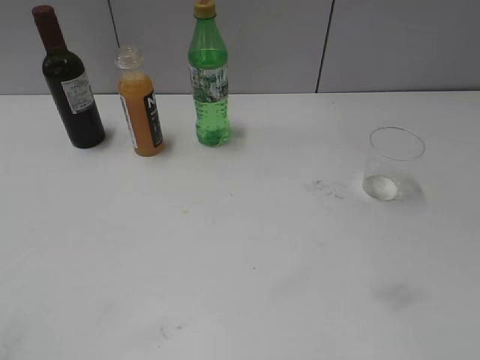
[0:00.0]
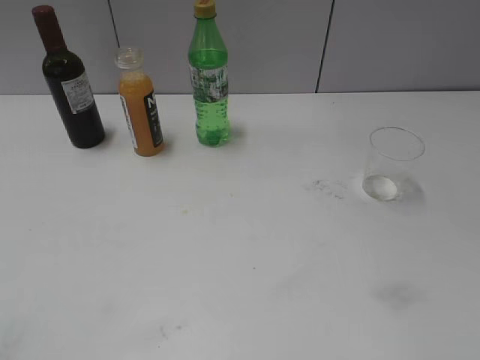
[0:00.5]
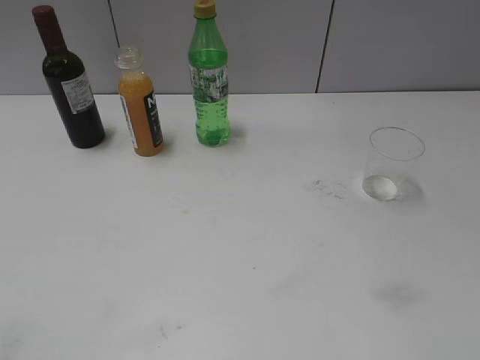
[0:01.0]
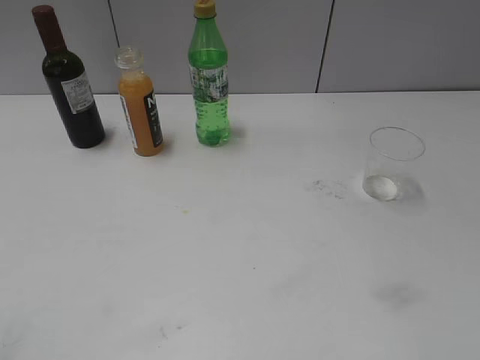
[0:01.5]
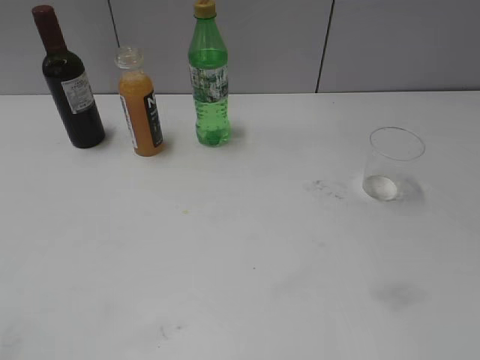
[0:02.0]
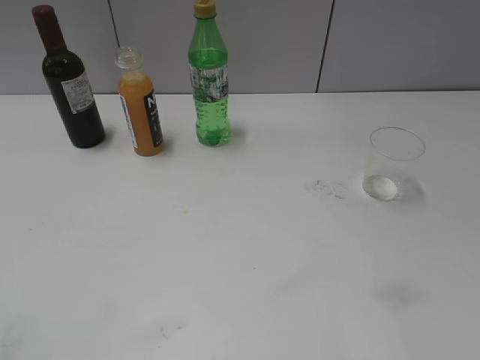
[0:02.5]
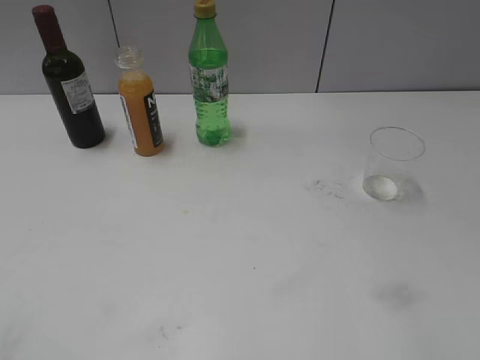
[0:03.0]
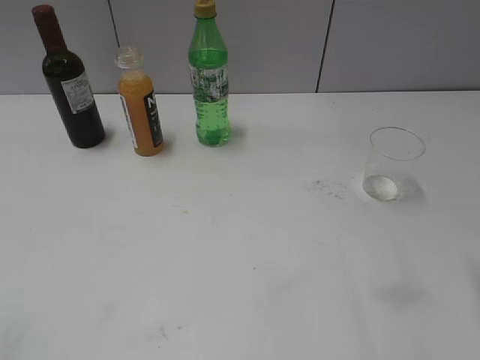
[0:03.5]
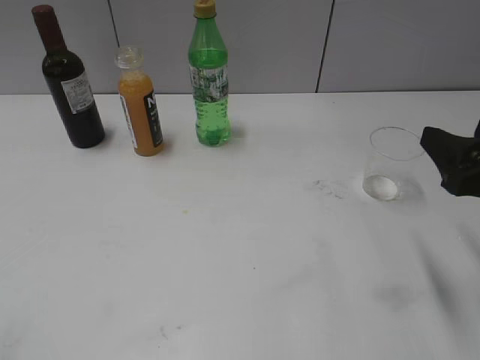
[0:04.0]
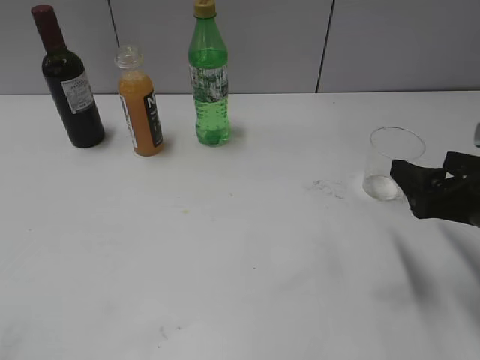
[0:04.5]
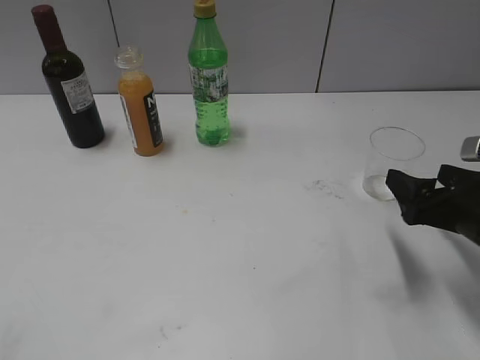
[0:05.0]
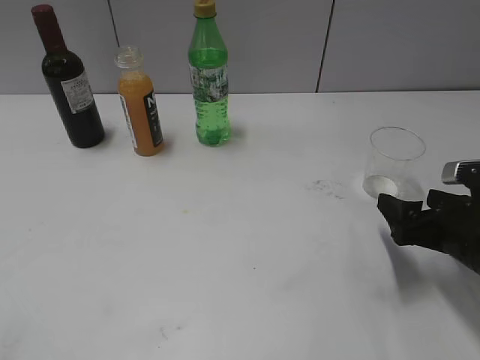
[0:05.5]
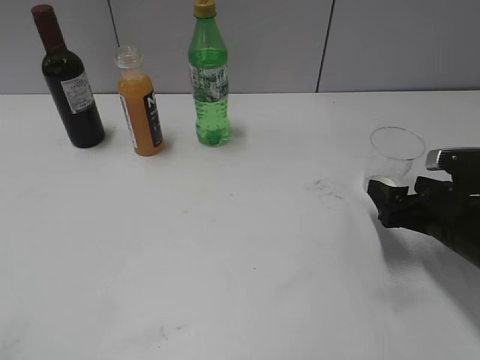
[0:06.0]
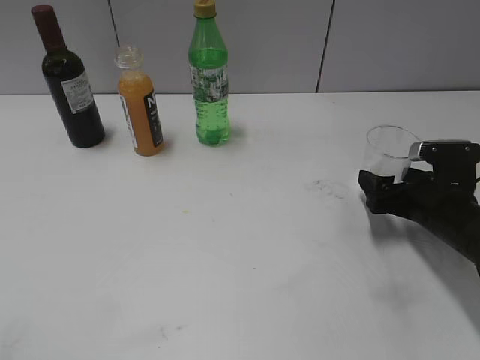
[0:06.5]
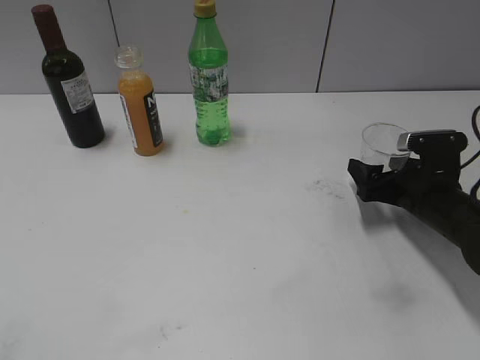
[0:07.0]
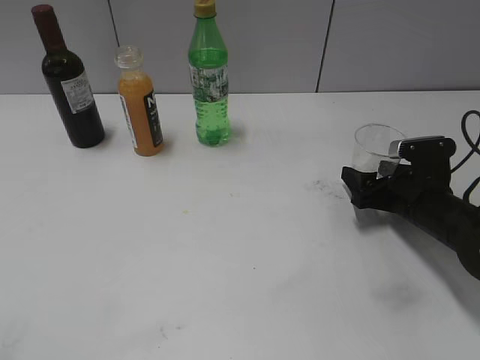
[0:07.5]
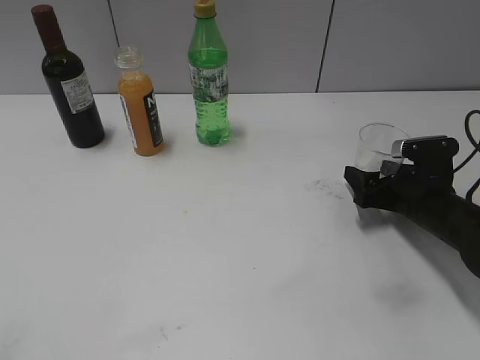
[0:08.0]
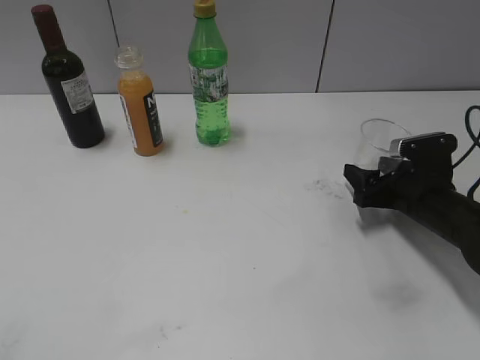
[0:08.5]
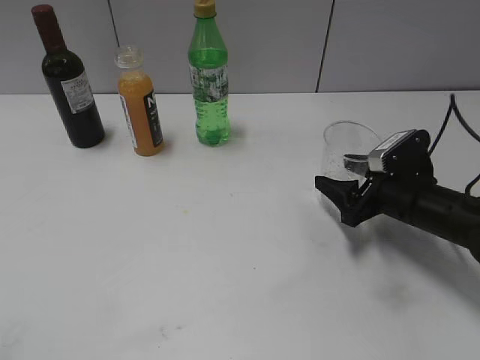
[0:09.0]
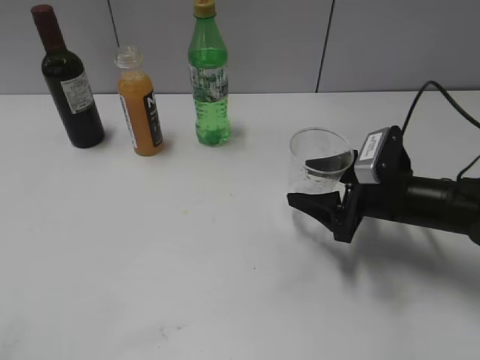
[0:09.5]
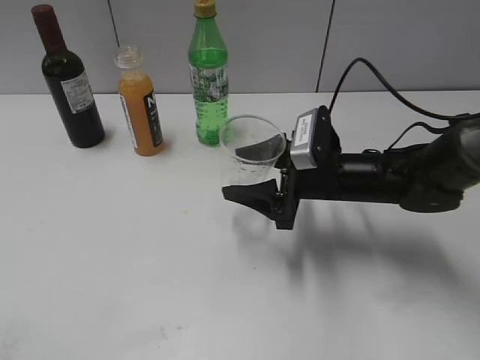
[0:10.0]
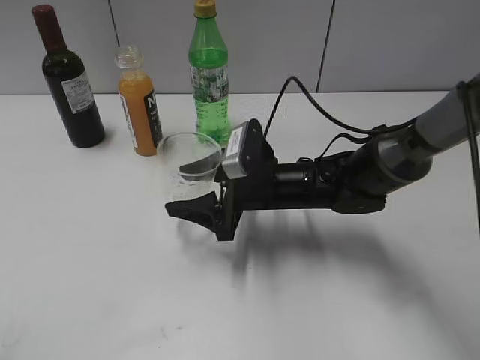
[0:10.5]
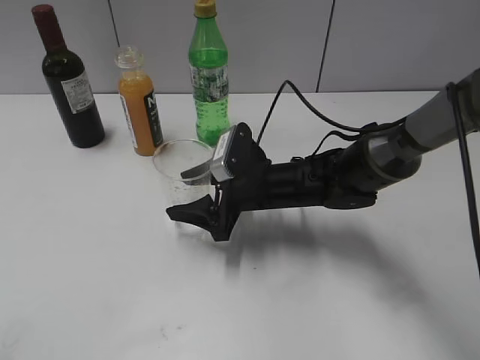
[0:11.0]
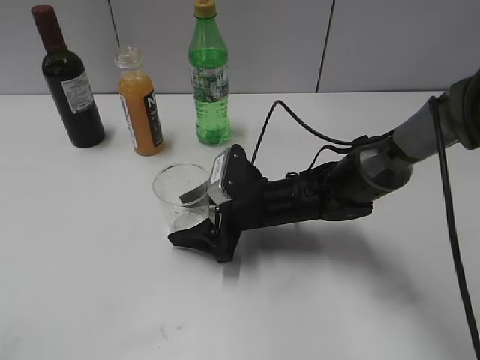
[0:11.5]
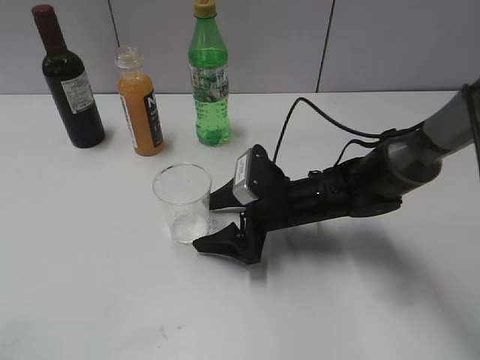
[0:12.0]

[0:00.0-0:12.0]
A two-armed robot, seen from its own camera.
Step, 0:04.0 to 0:07.5: Grasp the transparent cup with right gripper.
Step, 0:08.0 to 0:12.0: Place the transparent cup on the table with right gripper.
0:02.0 to 0:04.0: The right gripper is displaced forward by roughly 20 cm.
0:04.0 to 0:06.0: The right gripper travels downward and forward by approximately 15 cm, and opens up.
0:06.0 to 0:08.0: The right gripper heads forward, covering some 5 cm, and closes.
0:08.0 to 0:10.0: The right gripper heads to the left, covering approximately 15 cm.
0:10.0 to 0:12.0: The right gripper heads to the left and downward, covering approximately 10 cm, and opens.

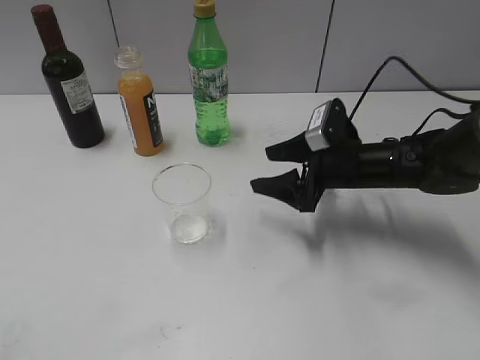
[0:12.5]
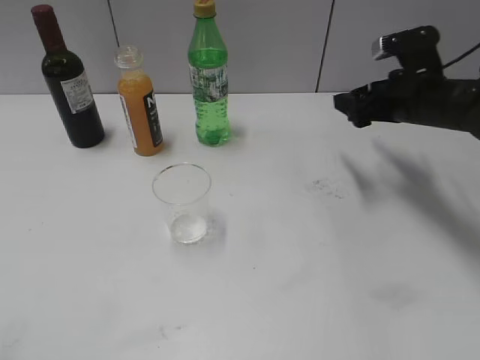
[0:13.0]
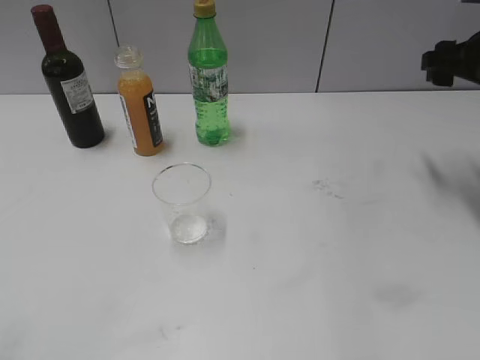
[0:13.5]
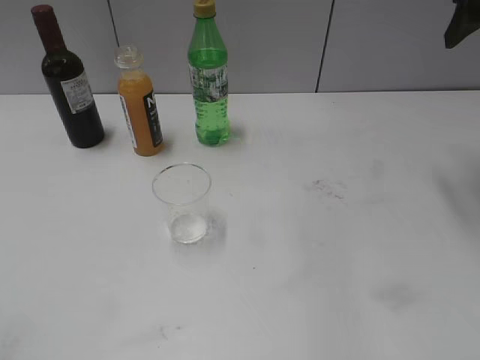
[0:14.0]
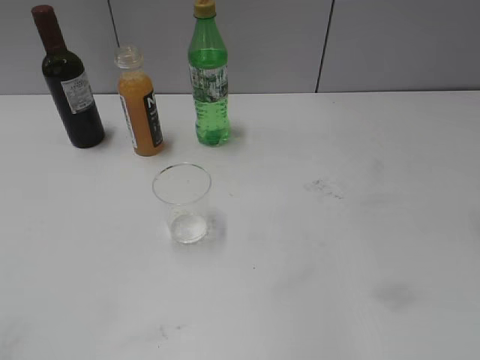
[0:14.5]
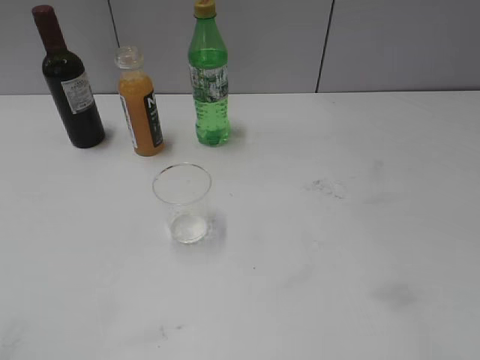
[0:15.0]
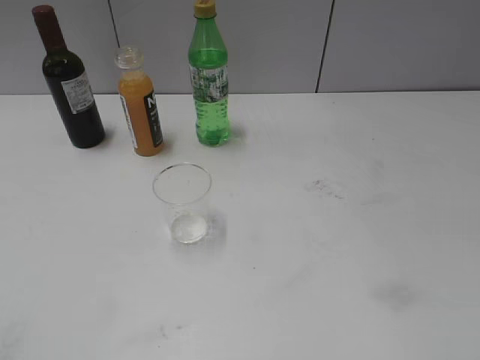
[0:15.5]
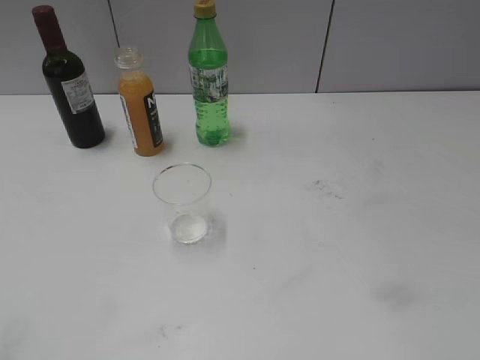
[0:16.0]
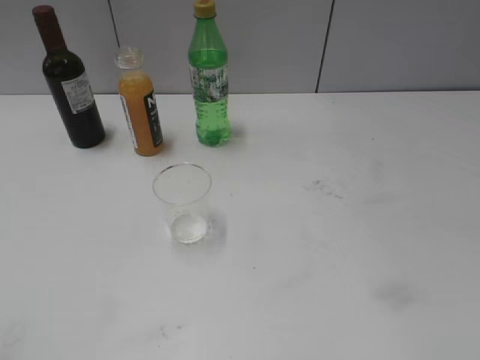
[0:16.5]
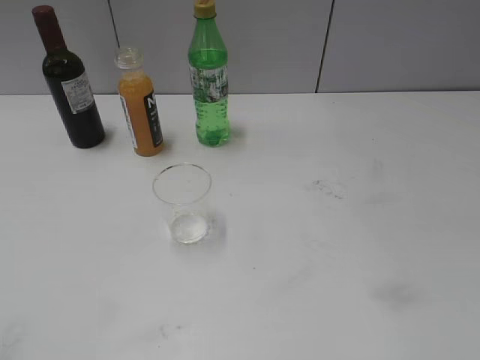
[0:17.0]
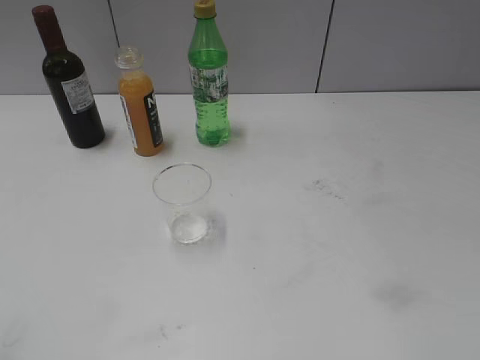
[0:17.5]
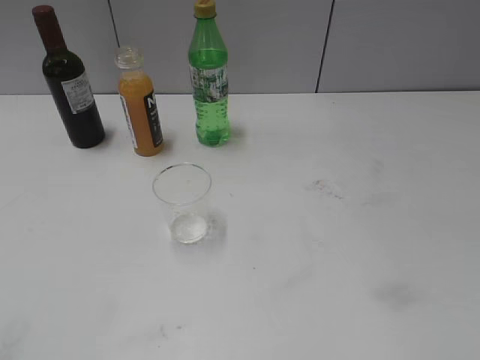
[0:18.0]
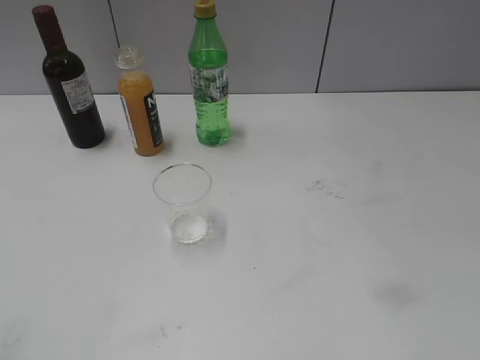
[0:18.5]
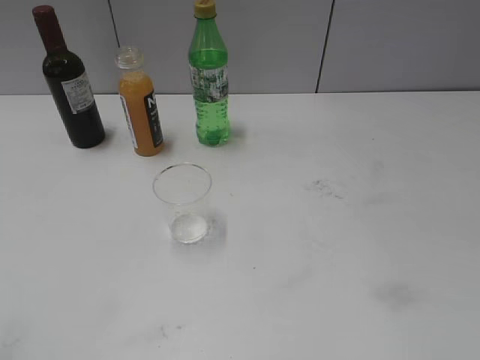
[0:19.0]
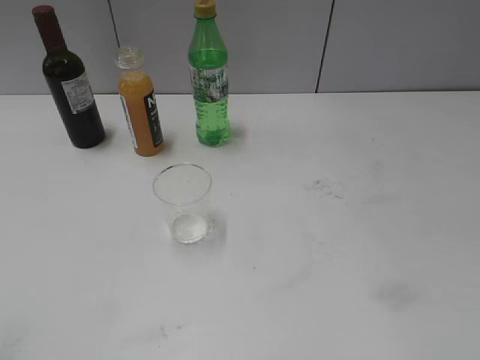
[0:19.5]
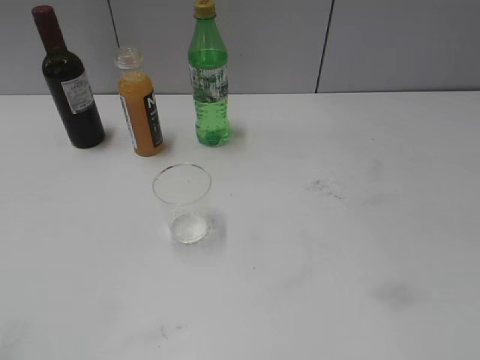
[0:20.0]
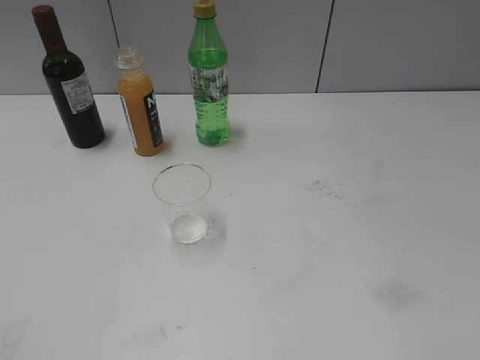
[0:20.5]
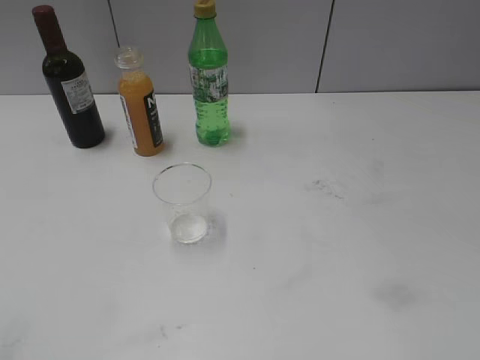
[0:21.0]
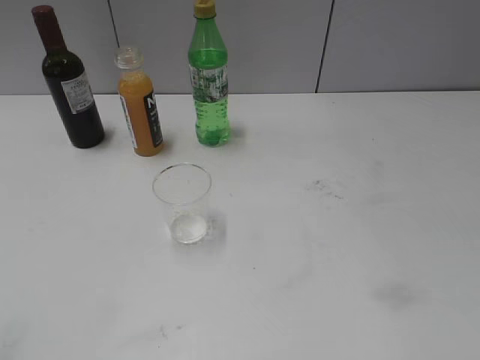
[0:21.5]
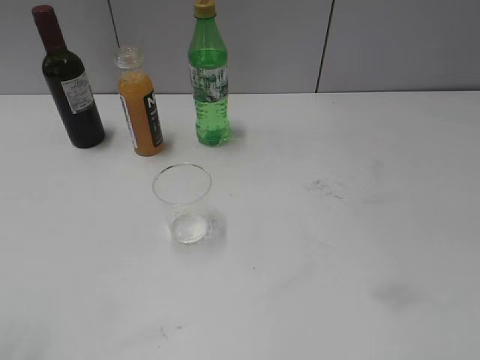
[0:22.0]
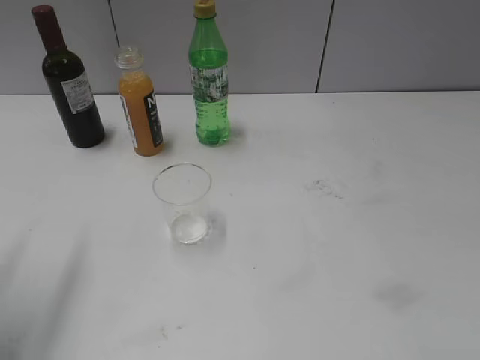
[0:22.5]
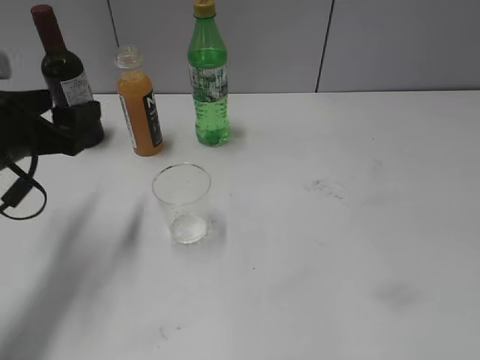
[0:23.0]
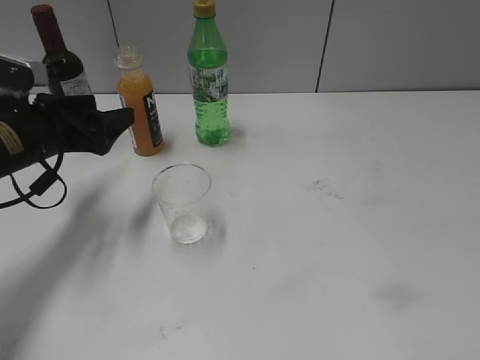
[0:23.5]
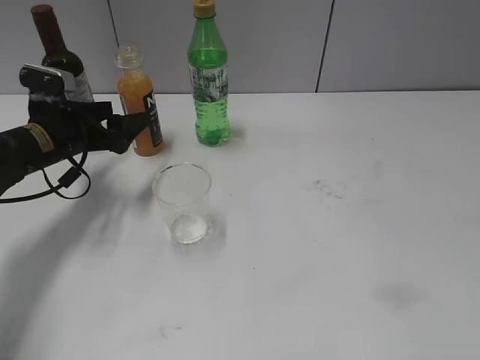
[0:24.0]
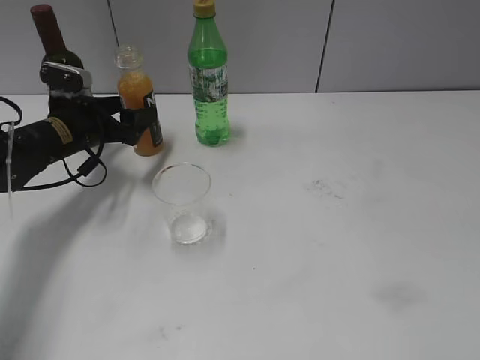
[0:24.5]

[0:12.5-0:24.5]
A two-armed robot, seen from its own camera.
0:12.5 to 0:14.5: The right gripper shifts roughly 35 cm upward and to the right.
0:16.5 to 0:20.5: The two grippers keep their place.
0:20.5 to 0:22.5: The left gripper heads forward, covering approximately 20 cm, and opens.
0:22.5 to 0:24.5: The left gripper goes some 30 cm forward and downward.

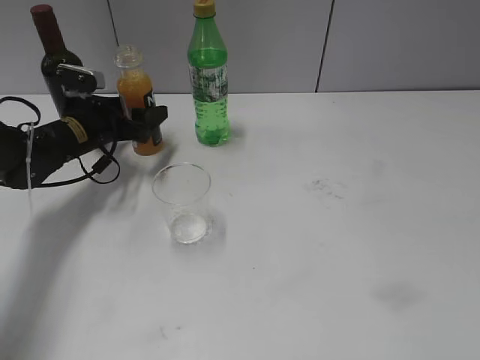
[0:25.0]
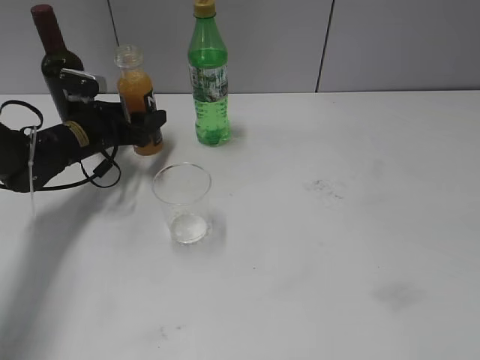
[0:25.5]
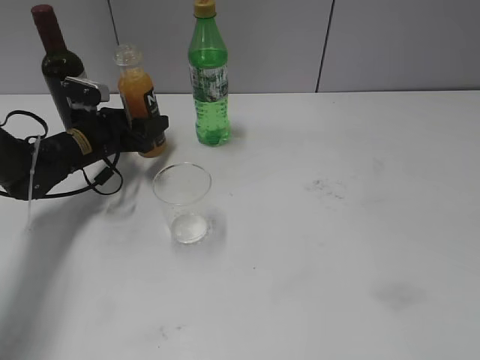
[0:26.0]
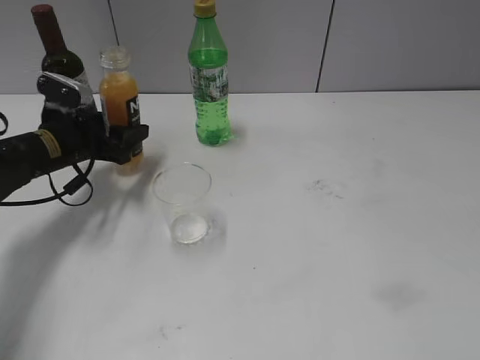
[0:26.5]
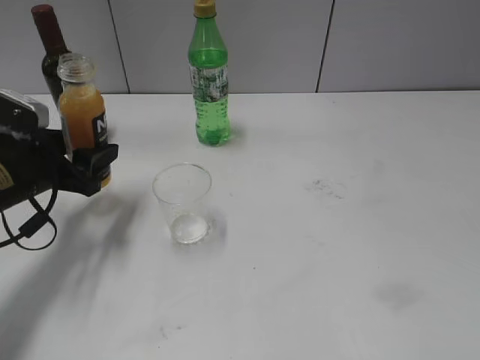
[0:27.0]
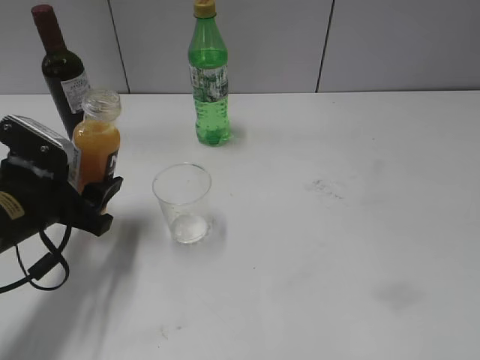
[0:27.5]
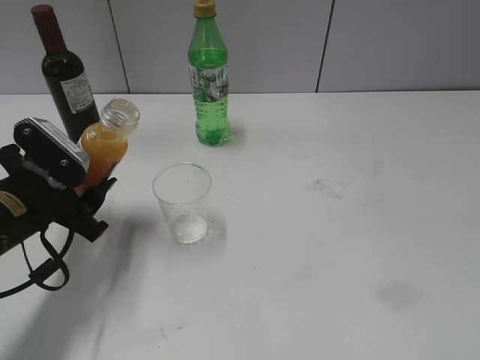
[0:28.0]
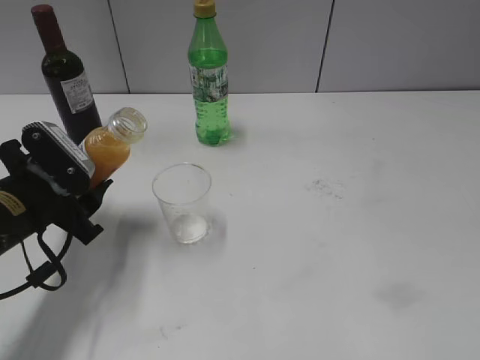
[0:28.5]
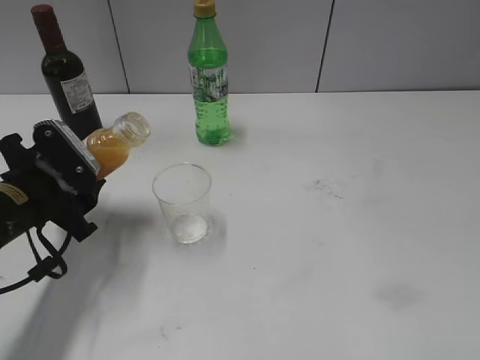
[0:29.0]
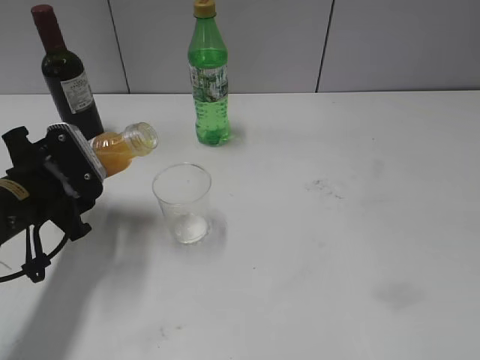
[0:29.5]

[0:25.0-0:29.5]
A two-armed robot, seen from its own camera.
0:25.0 to 0:27.0: The left gripper is displaced backward by about 15 cm, and closes up.
